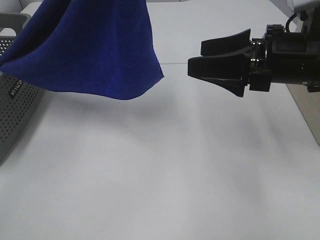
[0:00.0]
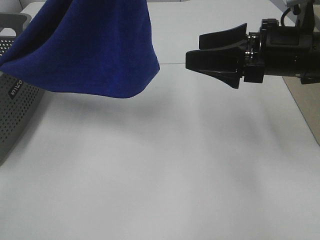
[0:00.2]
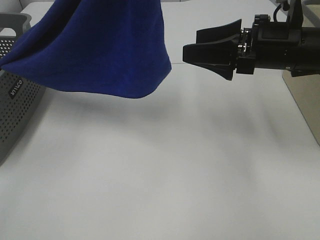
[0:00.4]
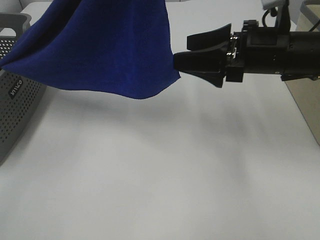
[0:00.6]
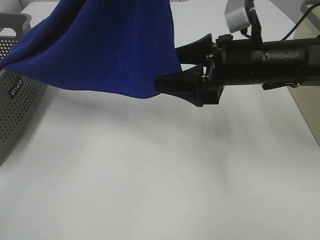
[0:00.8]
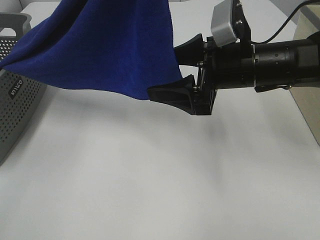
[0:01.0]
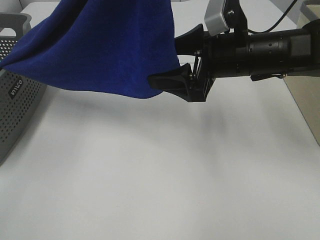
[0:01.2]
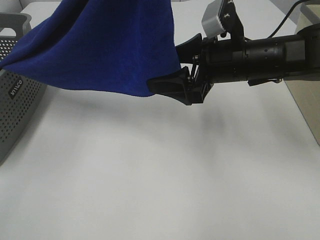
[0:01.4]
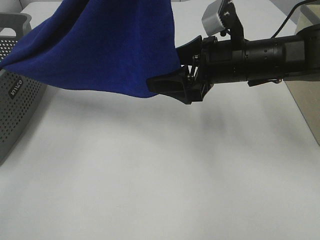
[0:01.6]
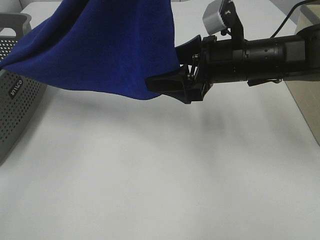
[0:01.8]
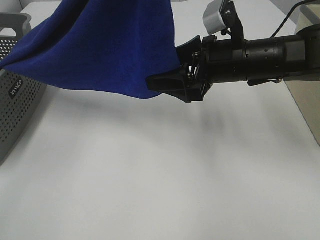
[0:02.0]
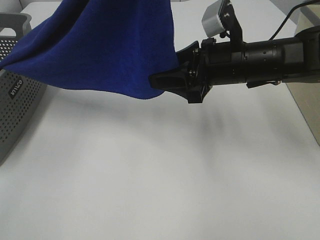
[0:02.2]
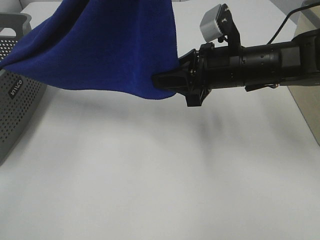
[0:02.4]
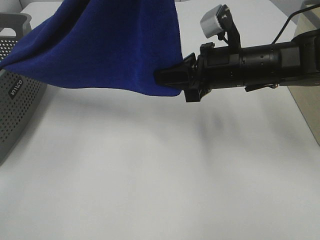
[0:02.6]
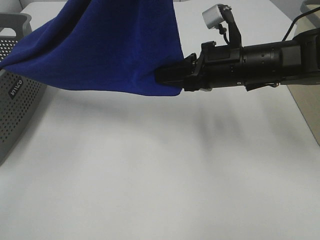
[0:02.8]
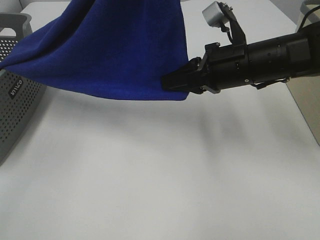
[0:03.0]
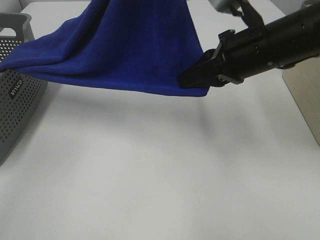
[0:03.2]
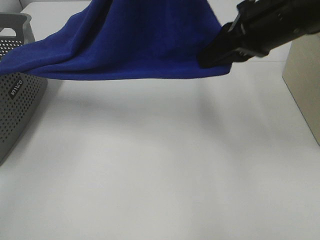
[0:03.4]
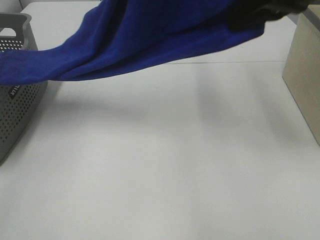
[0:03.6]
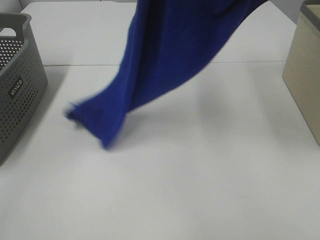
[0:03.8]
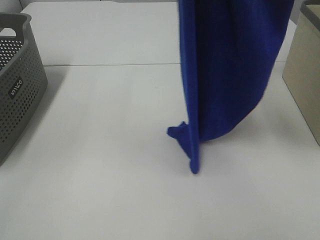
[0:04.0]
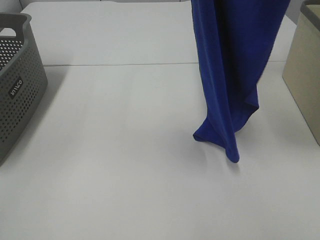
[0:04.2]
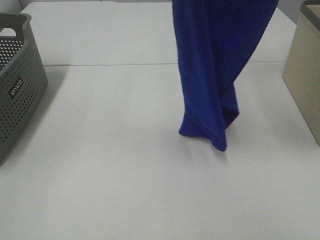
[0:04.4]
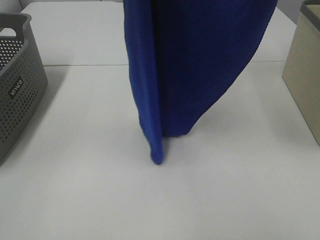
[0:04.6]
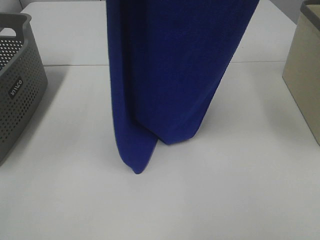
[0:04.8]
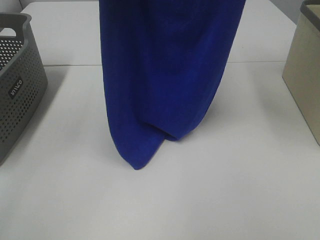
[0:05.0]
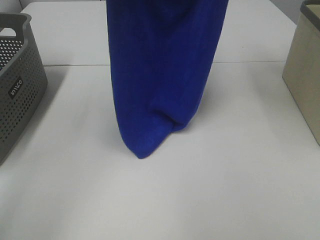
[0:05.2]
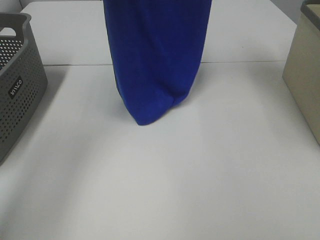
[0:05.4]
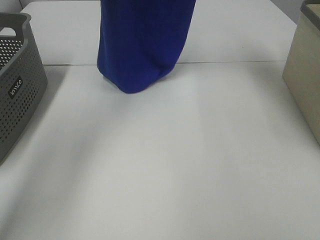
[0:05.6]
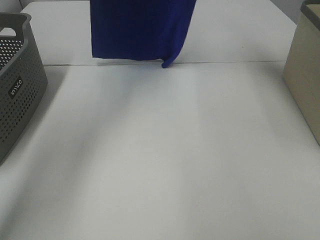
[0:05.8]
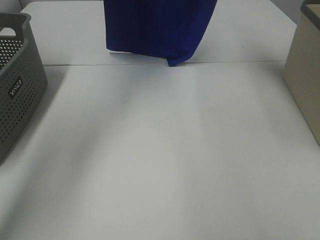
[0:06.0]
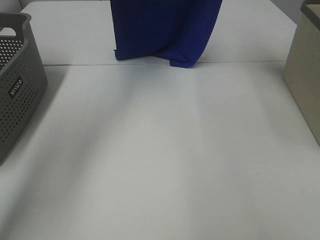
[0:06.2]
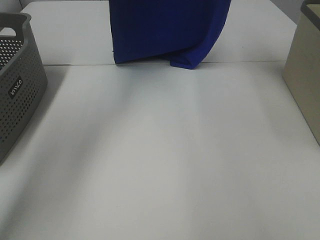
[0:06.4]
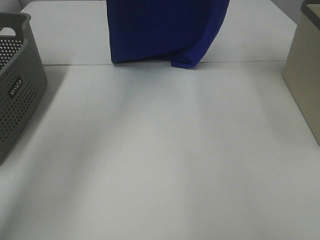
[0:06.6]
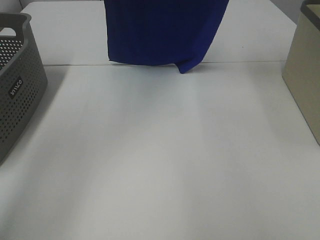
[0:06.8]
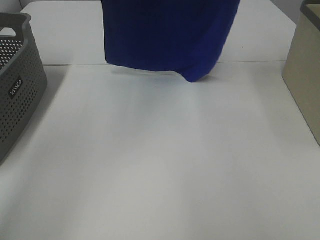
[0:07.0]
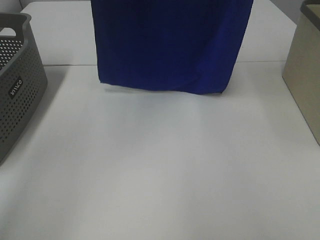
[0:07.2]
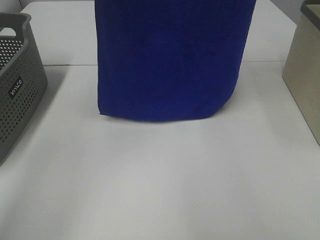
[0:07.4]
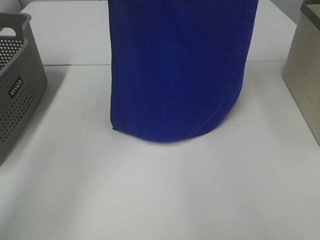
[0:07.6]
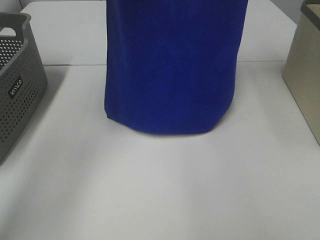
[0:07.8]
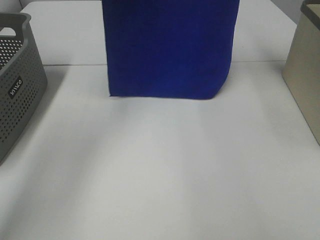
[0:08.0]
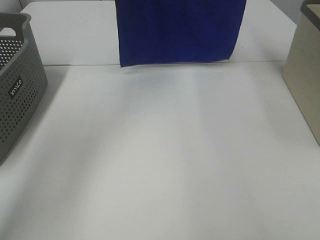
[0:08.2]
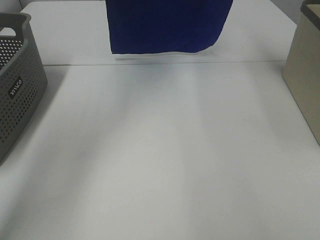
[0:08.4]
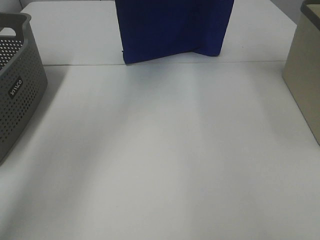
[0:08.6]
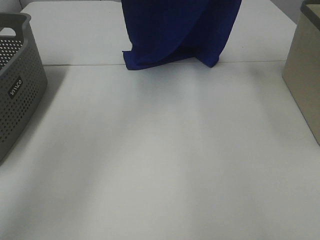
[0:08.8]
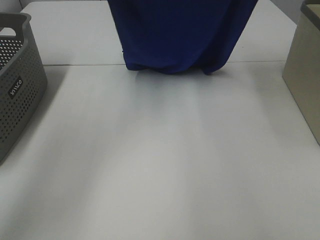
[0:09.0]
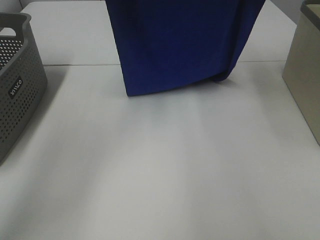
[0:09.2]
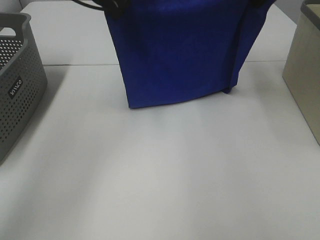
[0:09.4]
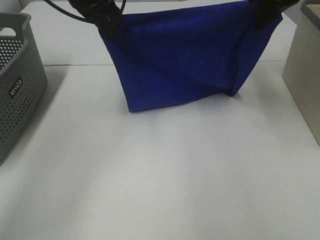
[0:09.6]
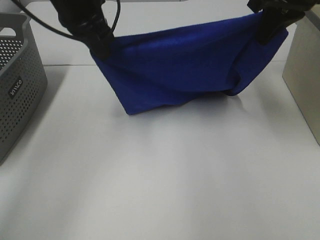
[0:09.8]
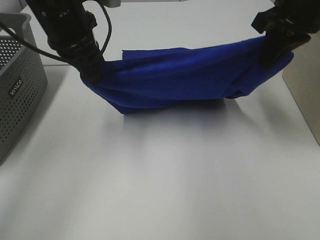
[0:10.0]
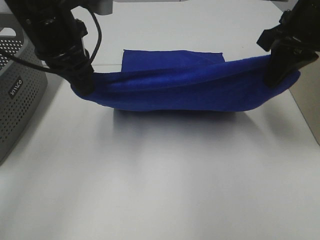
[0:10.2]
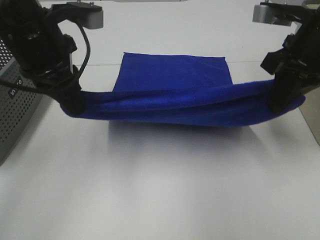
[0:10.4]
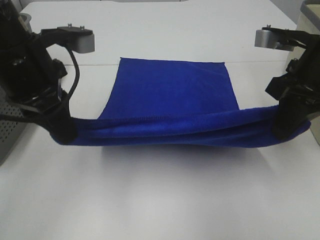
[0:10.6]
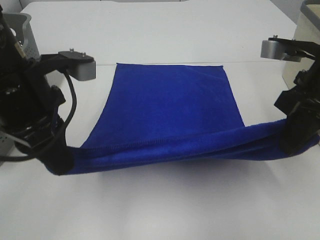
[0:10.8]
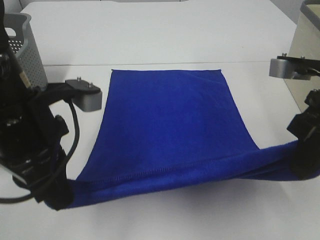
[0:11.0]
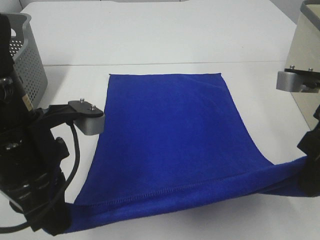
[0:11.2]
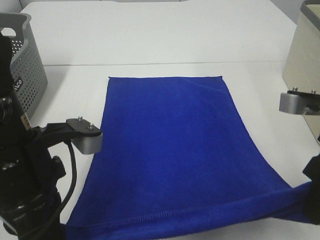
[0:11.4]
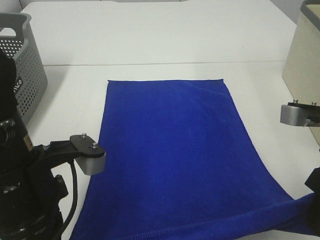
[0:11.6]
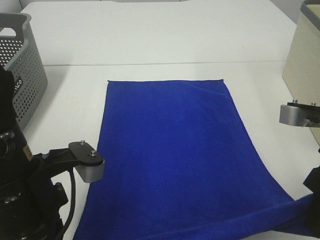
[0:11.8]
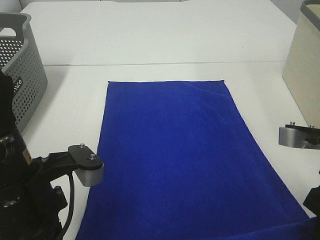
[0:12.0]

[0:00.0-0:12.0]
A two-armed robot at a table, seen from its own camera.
Task of the whole recording: Remove the towel and place it.
Step, 0:00.0 to 0:03.4: Right hand: grab a corner of the blue towel and straighten it.
Step, 0:03.6 to 0:09.2: Left hand: spread the blue towel flat on the table.
Step, 0:03.6 to 0:09.2: Right hand: spread the blue towel flat on the table.
0:00.0 to 0:01.6: The right gripper travels to the left by about 5 cm.
0:01.6 to 0:03.0: The right gripper closes up.
0:03.0 to 0:04.4: The left gripper moves upward, about 10 cm. Meanwhile the right gripper travels upward by roughly 30 cm.
0:04.4 to 0:06.0: The right gripper travels forward by some 25 cm, while the left gripper moves forward and downward, about 25 cm.
0:06.0 to 0:07.6: The left gripper goes approximately 10 cm backward and upward. Meanwhile the right gripper moves backward, about 5 cm.
0:07.6 to 0:09.0: Both grippers move downward, approximately 10 cm.
0:09.0 to 0:10.4: Both grippers travel together backward and downward, approximately 20 cm.
0:10.4 to 0:12.0: The grippers both shift backward and downward by about 15 cm.

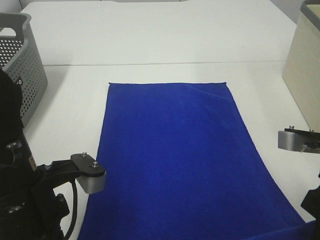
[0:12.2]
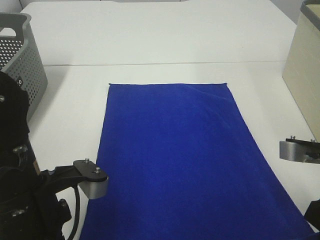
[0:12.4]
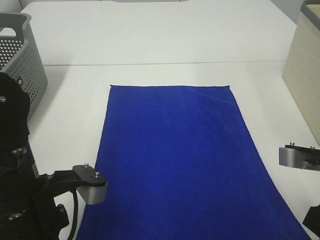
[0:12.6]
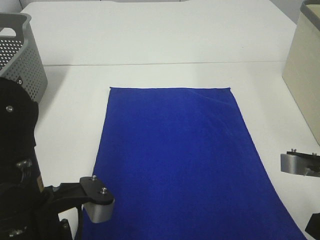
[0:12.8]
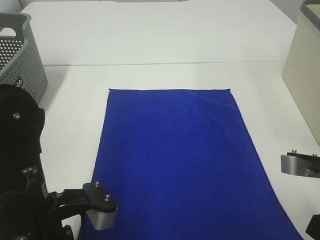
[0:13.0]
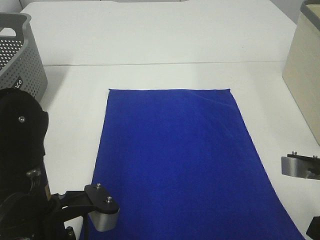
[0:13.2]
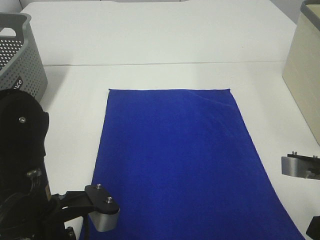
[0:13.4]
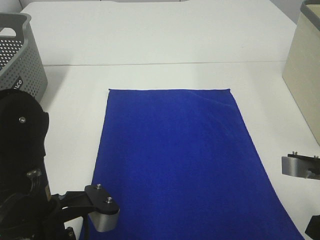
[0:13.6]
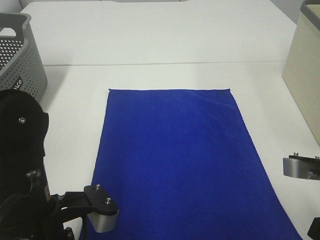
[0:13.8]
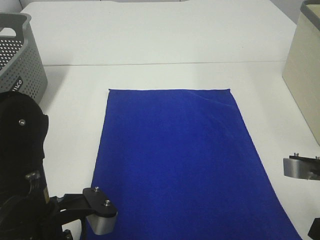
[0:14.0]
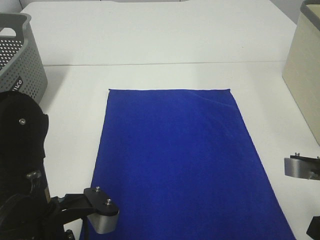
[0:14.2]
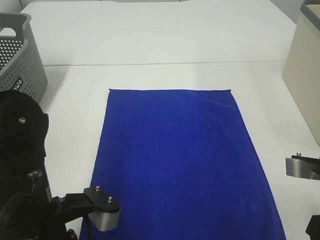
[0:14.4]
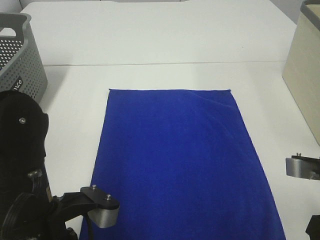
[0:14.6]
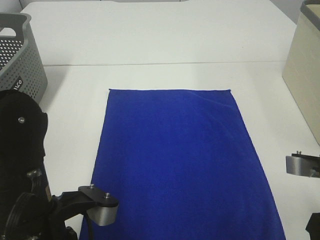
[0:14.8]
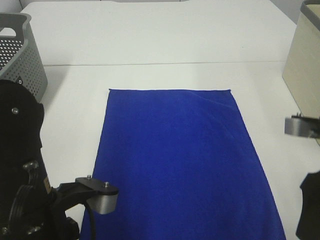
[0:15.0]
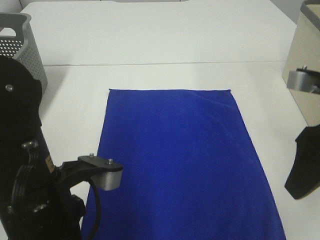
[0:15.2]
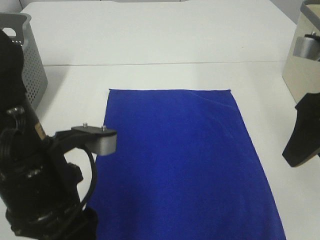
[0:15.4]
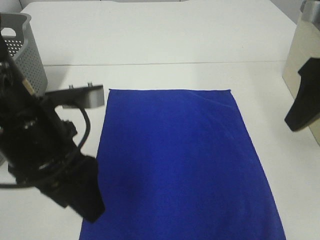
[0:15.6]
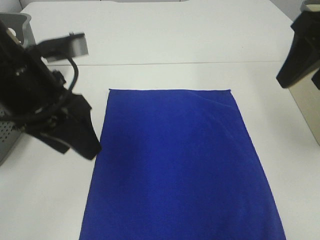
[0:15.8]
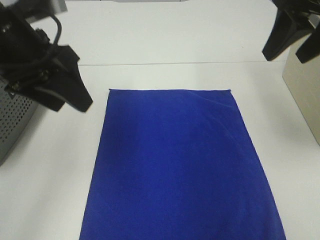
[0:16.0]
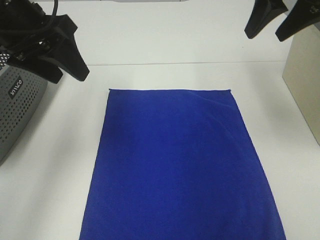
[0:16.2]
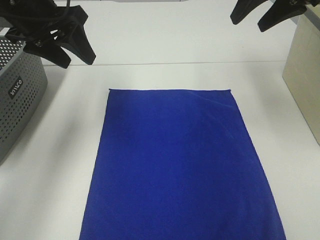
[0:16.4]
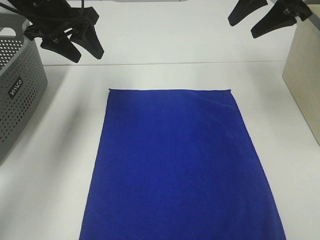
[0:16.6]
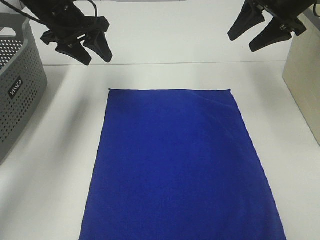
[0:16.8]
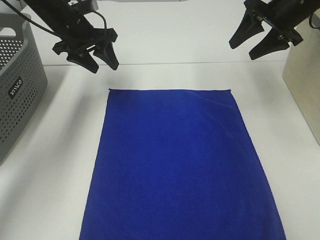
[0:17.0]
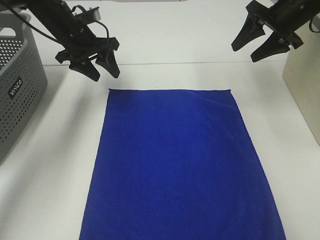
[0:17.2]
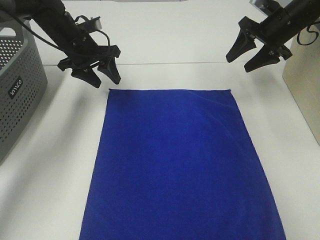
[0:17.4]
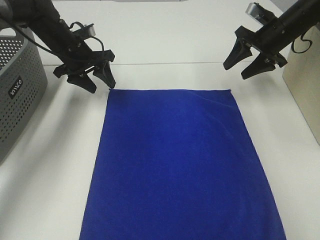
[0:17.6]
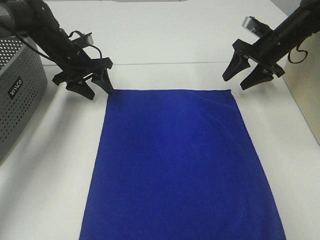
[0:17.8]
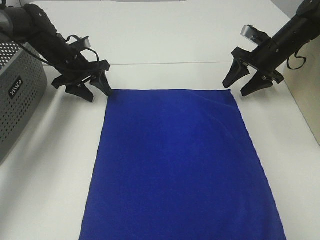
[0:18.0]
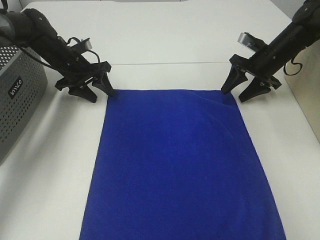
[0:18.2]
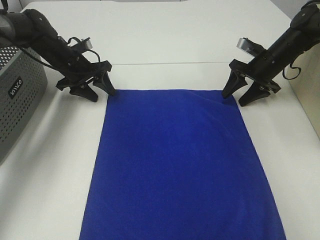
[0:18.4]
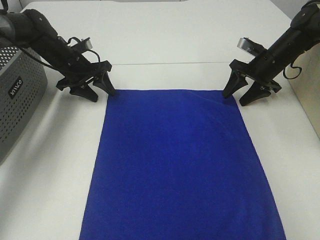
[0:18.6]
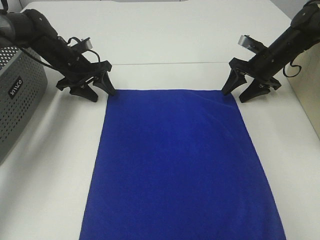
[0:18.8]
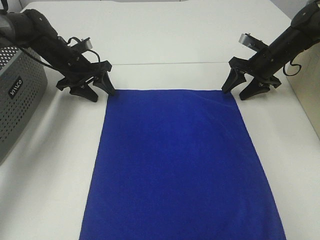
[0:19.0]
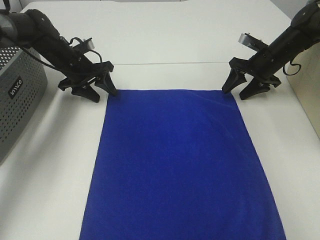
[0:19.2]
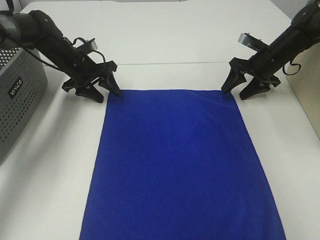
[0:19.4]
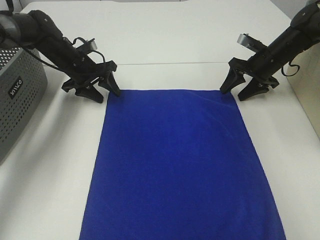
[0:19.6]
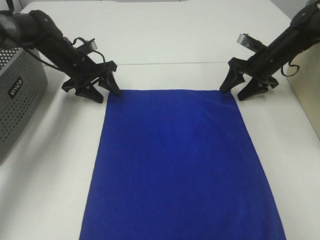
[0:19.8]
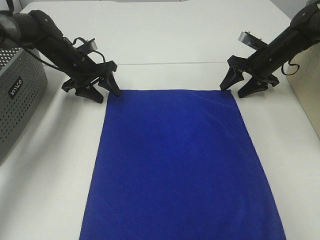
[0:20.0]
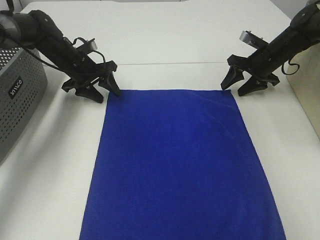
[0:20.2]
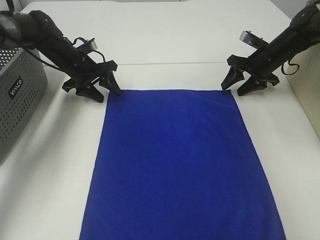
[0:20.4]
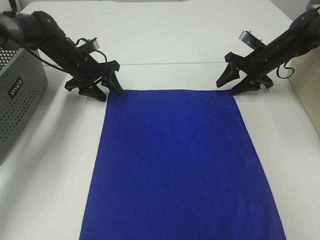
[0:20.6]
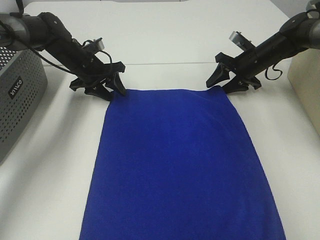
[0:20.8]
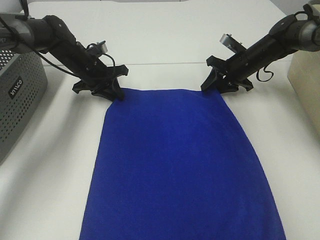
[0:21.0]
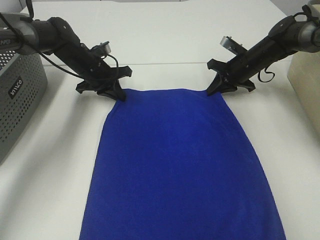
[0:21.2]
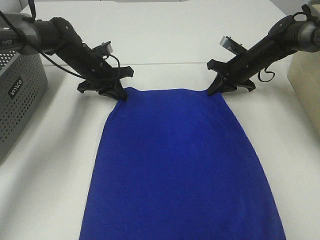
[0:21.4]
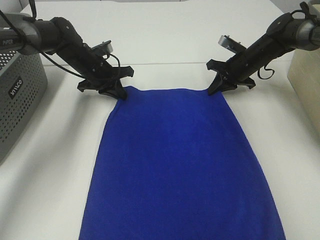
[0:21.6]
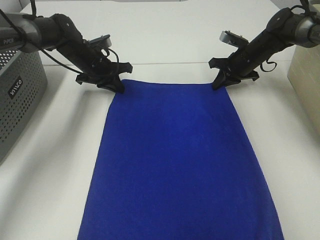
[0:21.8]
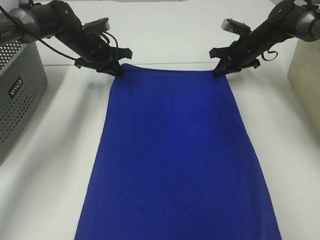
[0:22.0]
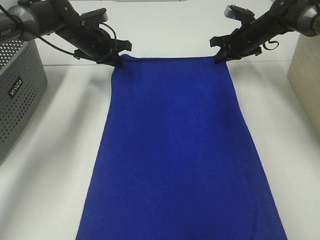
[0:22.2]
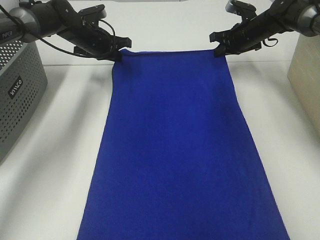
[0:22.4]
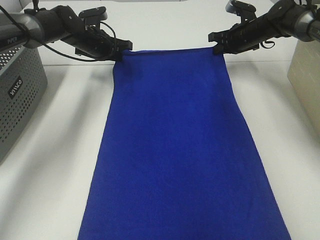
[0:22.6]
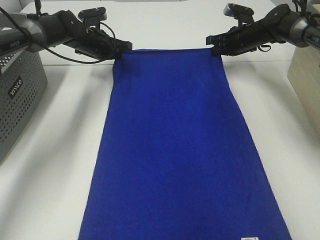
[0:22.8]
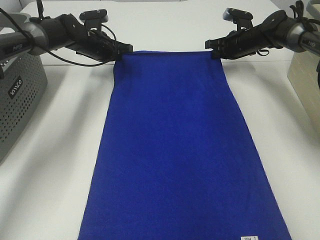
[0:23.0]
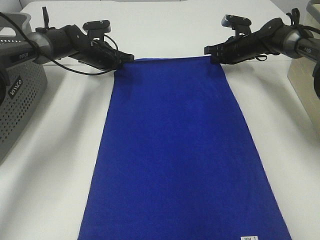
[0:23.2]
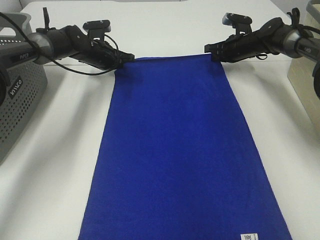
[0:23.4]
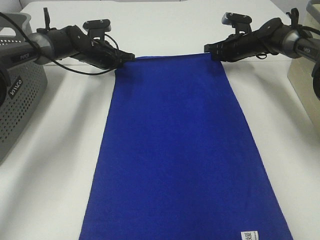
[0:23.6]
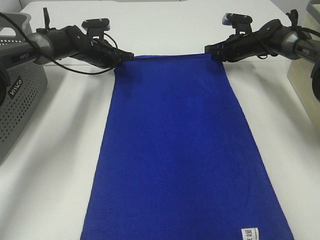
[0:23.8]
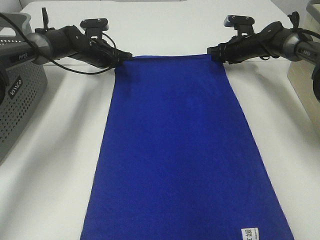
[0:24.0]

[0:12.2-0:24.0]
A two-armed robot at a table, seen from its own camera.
Task of the whole recording: Remove the towel and place it.
Step, 0:12.2 to 0:17.0: Right hand:adjust the blue towel.
Step, 0:12.2 to 0:17.6: Left hand:adjust the blue towel.
0:12.2 to 0:13.6: There are only small adjustments of the grippers.
0:13.6 to 0:15.2: The right gripper travels upward and forward by roughly 10 cm, and opens its fingers; the left gripper opens its fingers.
0:15.2 to 0:16.6: Both grippers travel together forward, approximately 25 cm.
0:16.6 to 0:18.2: The left gripper is displaced downward and forward by roughly 20 cm, while the right gripper is displaced downward by approximately 20 cm.
0:18.2 to 0:19.6: The grippers make only small movements.
0:19.6 to 0:21.0: The right gripper shifts by approximately 5 cm, while the left gripper closes.
0:21.0 to 0:22.6: The left gripper travels forward by about 5 cm, while the right gripper heads forward and upward, covering some 10 cm, and closes.
0:22.6 to 0:24.0: The right gripper opens up.
